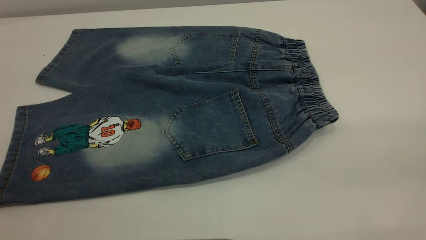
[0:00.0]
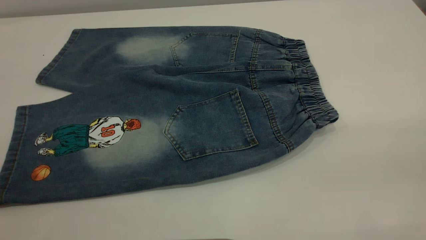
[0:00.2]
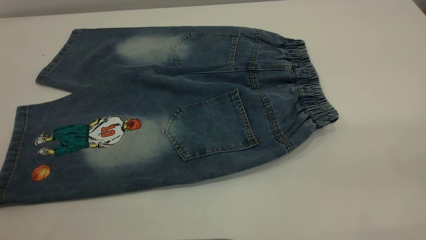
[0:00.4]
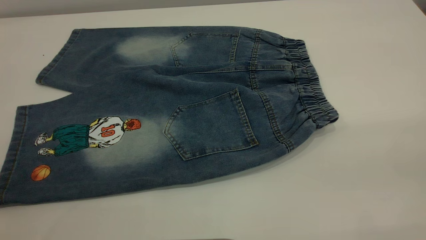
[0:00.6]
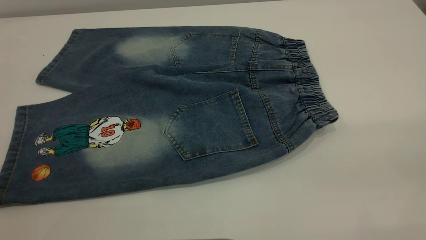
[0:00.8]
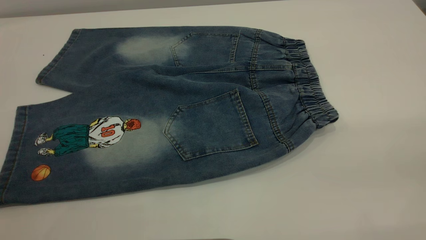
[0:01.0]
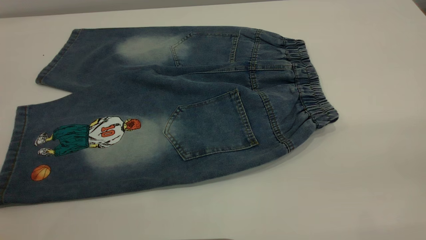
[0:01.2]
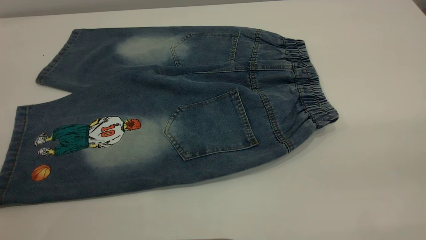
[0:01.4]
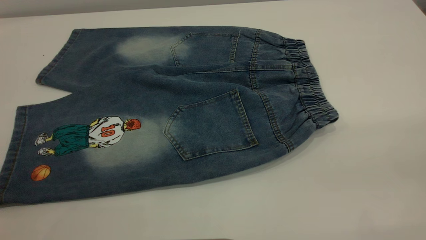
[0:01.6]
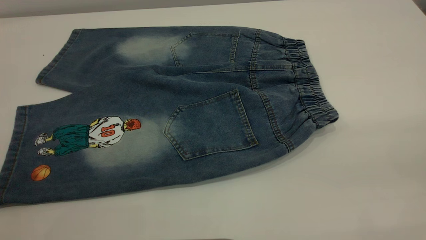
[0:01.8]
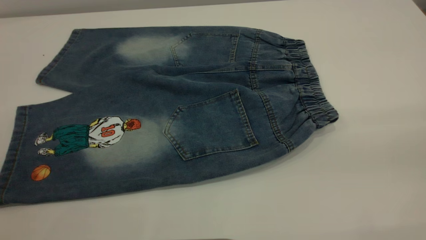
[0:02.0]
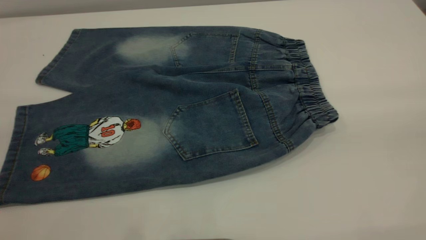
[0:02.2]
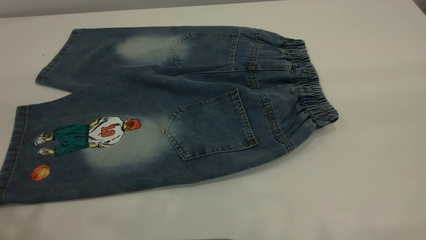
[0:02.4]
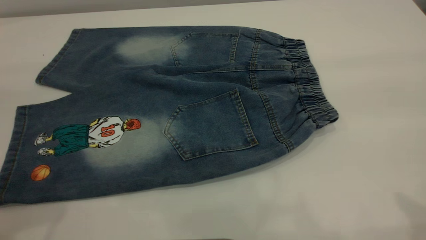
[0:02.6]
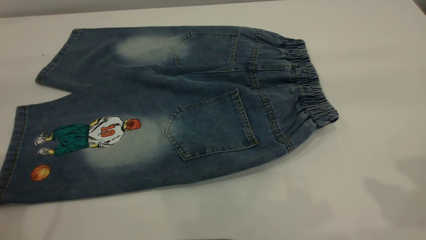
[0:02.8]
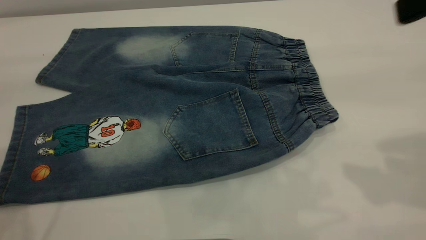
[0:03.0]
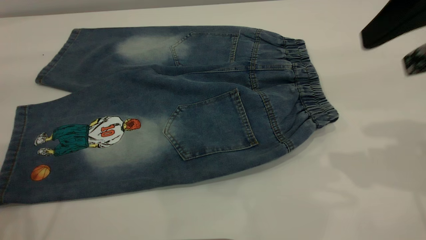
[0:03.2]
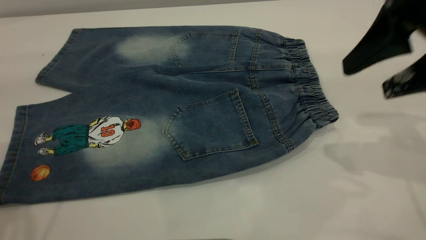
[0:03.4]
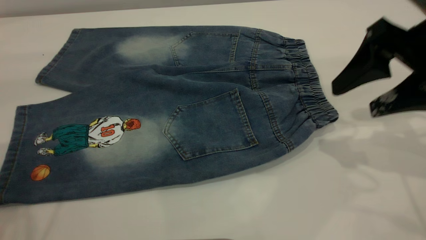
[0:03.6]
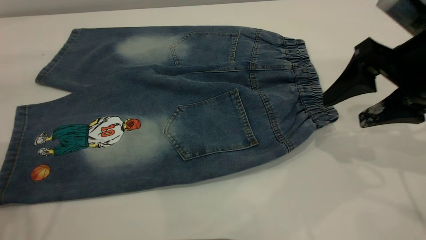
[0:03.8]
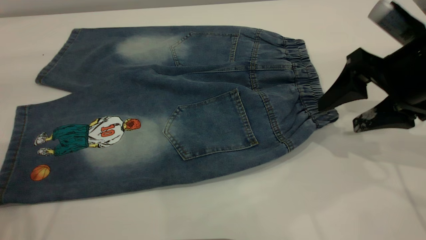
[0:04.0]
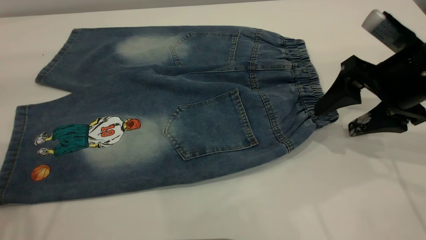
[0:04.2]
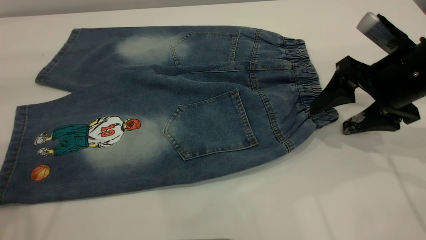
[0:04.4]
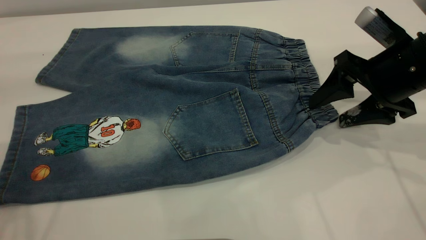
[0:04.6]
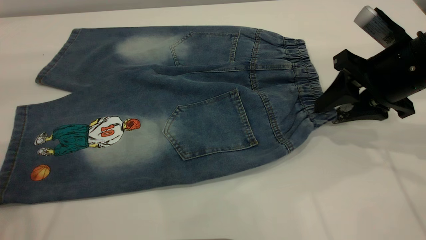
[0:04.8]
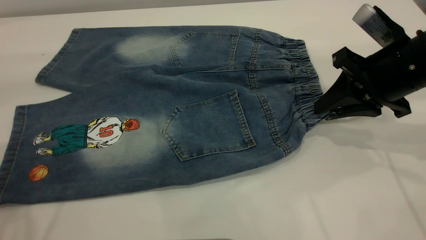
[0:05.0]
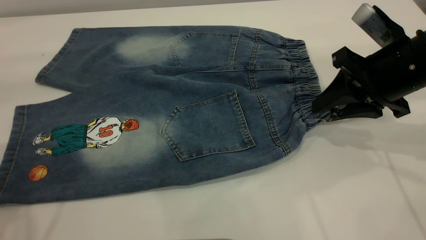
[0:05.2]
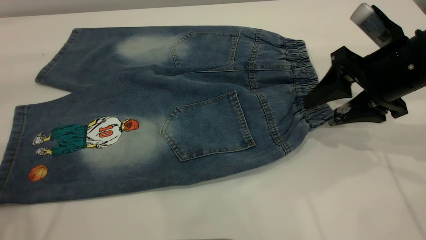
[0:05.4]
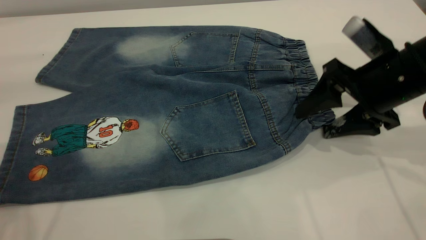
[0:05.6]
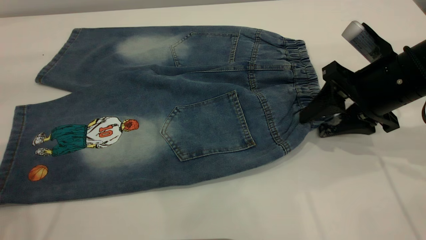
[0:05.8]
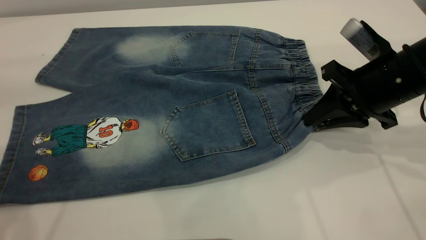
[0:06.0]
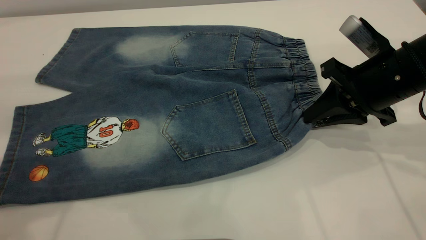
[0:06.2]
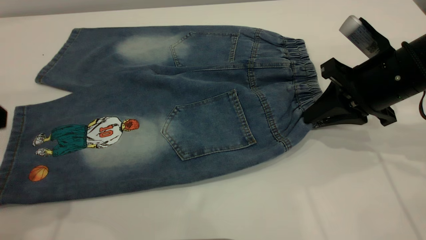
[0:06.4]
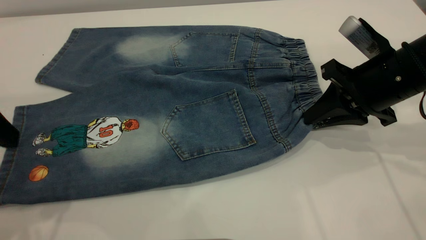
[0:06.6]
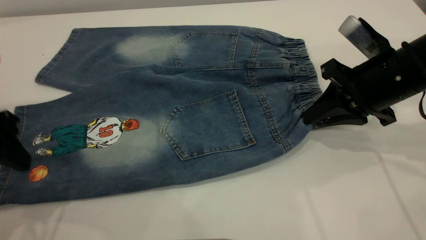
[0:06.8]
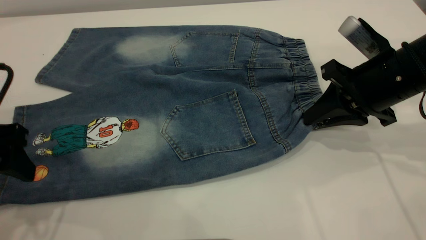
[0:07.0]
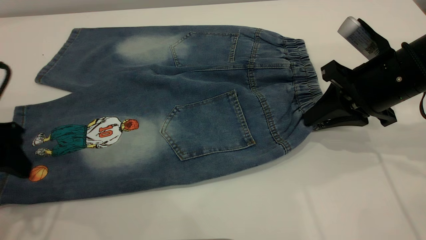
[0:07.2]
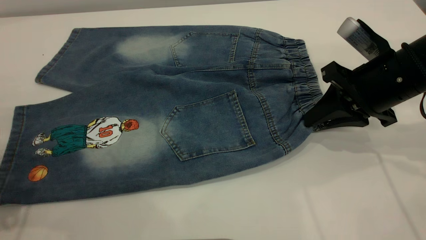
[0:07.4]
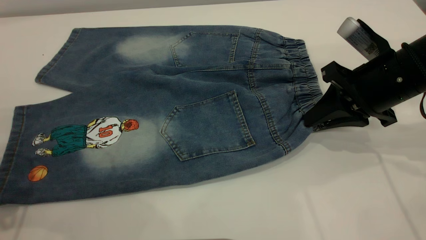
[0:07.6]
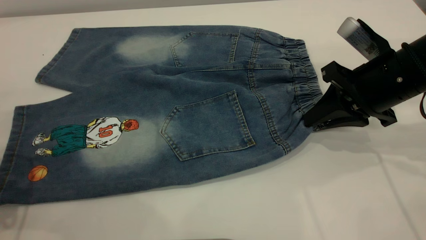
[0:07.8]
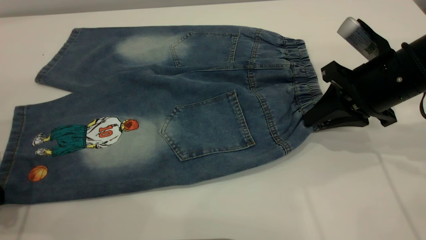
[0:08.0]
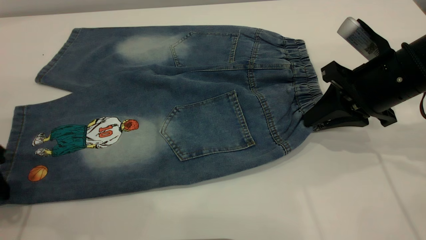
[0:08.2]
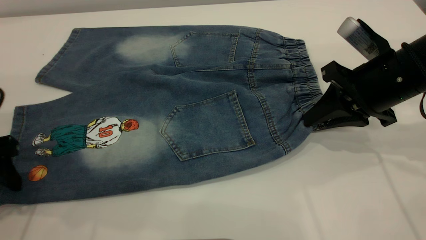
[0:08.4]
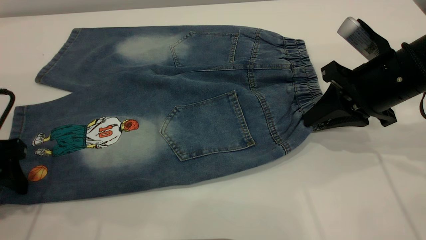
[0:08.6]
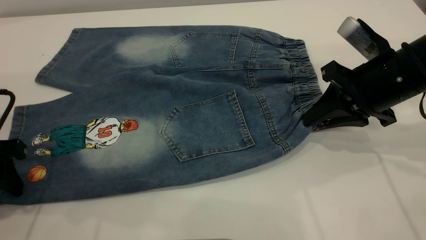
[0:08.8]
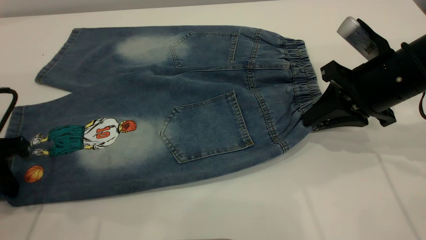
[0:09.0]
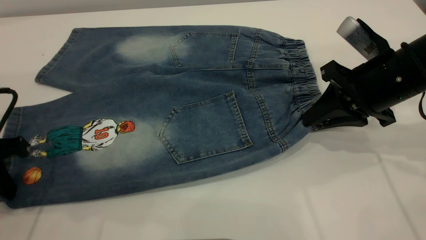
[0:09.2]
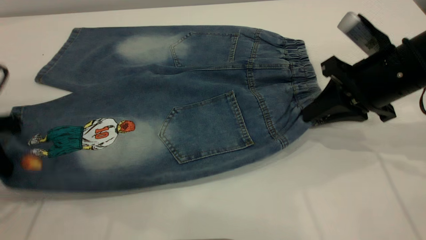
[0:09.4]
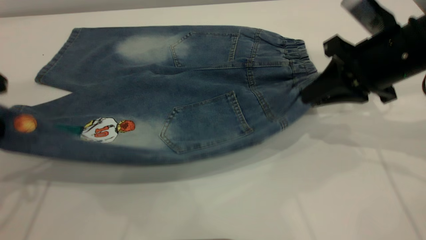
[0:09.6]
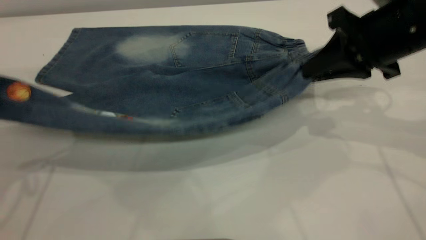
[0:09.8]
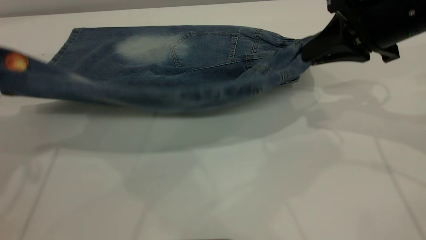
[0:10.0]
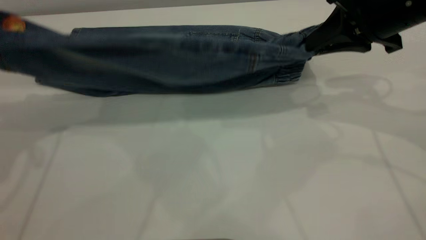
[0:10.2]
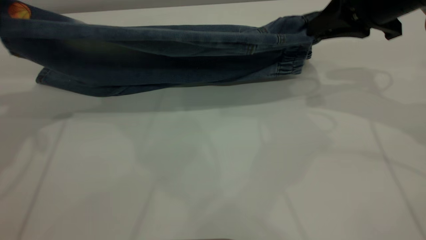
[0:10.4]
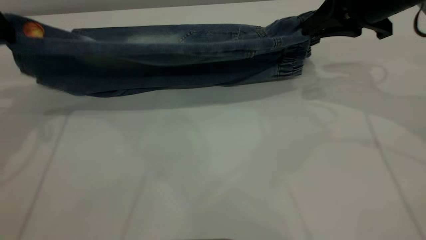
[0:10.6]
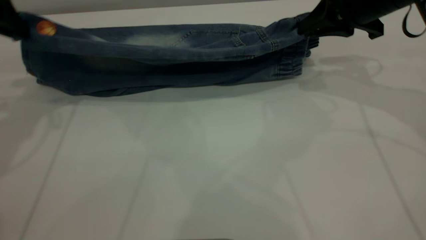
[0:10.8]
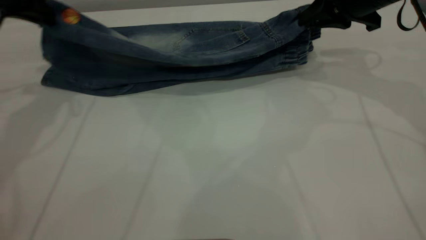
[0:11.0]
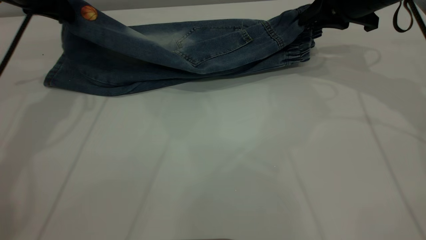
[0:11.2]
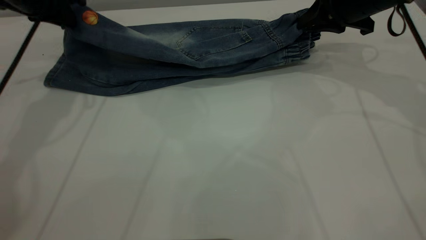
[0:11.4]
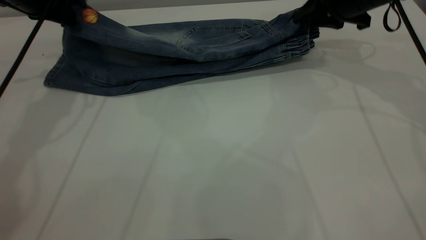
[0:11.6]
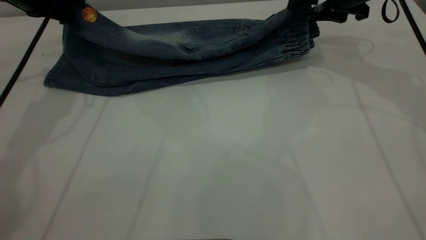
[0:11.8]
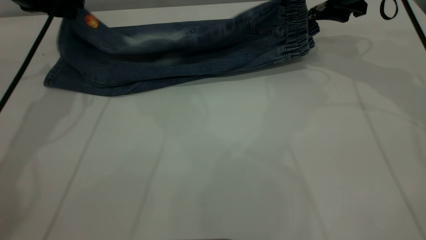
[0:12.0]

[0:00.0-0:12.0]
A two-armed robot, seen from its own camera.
0:00.0 to 0:01.6: Both grippers stay put.
0:01.6 to 0:03.0: The right gripper is displaced forward by some 20 cm.
0:03.0 to 0:04.4: The right gripper is displaced downward and forward by approximately 20 cm.
0:04.4 to 0:06.0: The right gripper closes up.
0:07.6 to 0:09.0: The left gripper changes place by approximately 5 cm, and closes up.
0:09.0 to 0:10.4: The right gripper goes about 10 cm upward and forward. Meanwhile the left gripper travels upward and forward by about 20 cm.
0:10.4 to 0:12.0: The right gripper moves forward, some 10 cm, and opens its fingers. The left gripper shifts some 10 cm forward and downward, and opens up.

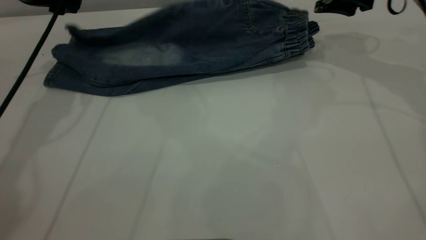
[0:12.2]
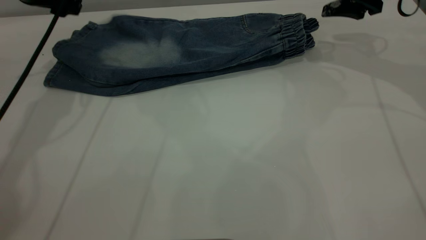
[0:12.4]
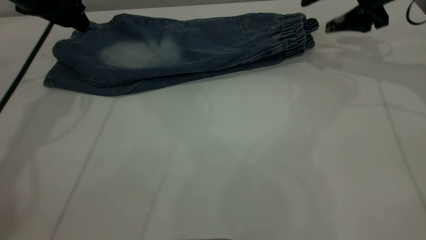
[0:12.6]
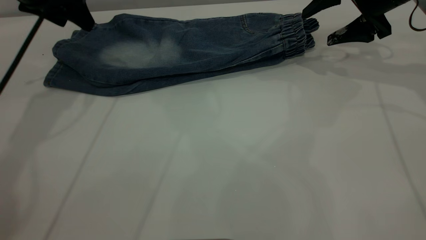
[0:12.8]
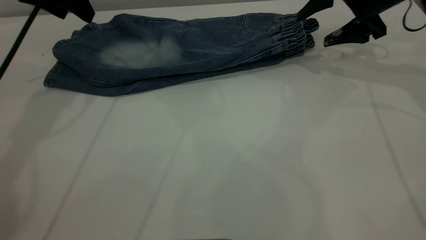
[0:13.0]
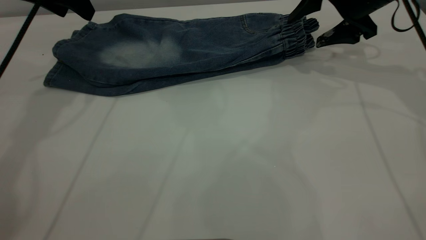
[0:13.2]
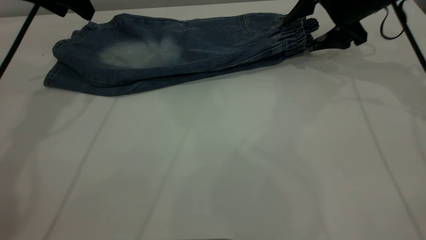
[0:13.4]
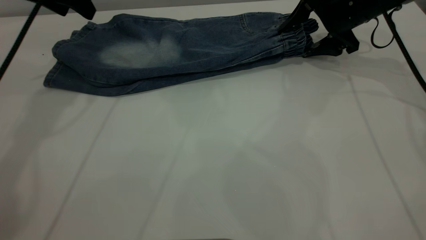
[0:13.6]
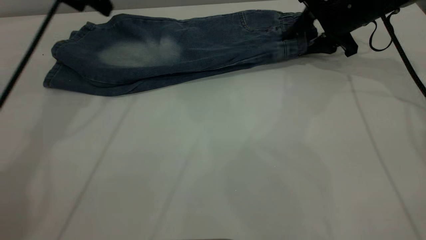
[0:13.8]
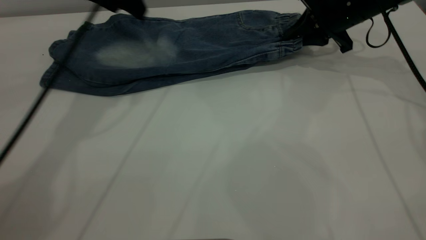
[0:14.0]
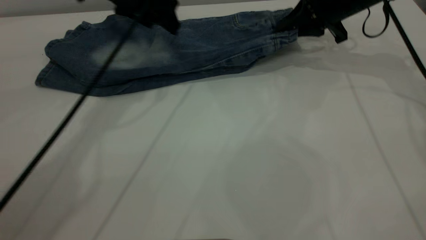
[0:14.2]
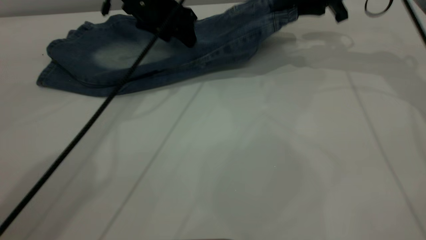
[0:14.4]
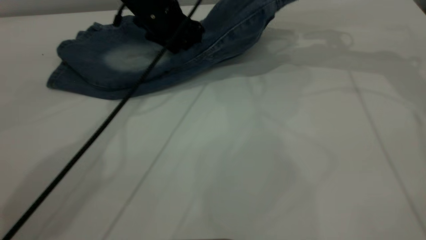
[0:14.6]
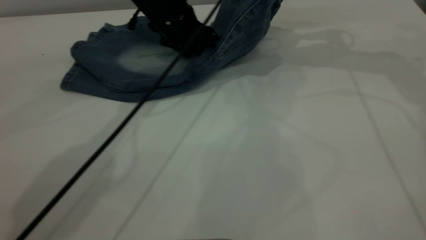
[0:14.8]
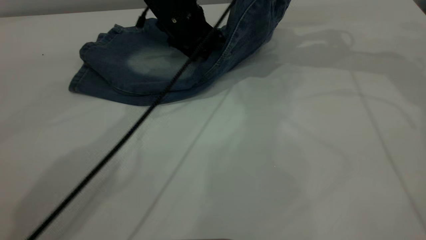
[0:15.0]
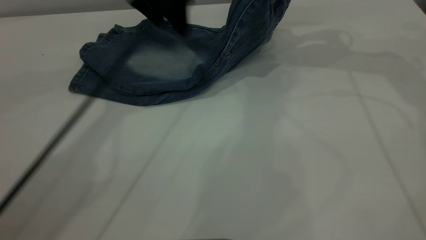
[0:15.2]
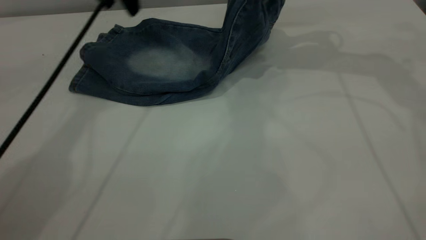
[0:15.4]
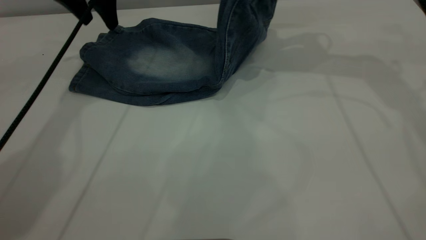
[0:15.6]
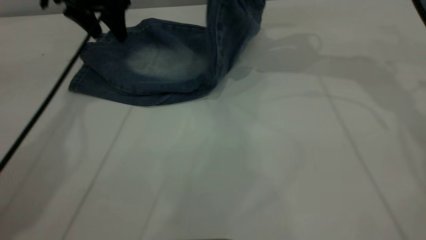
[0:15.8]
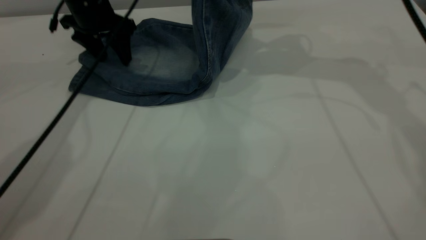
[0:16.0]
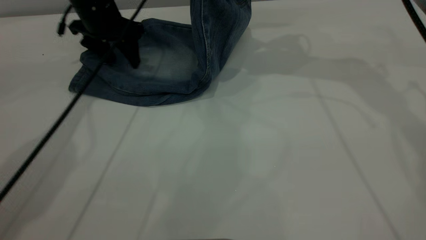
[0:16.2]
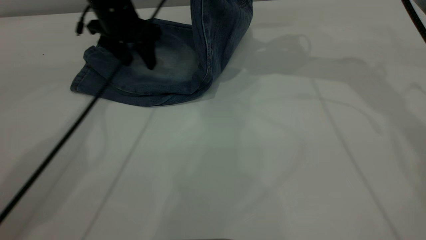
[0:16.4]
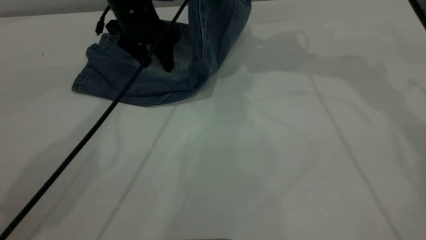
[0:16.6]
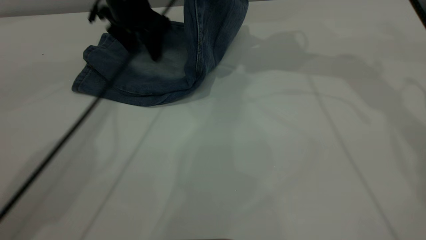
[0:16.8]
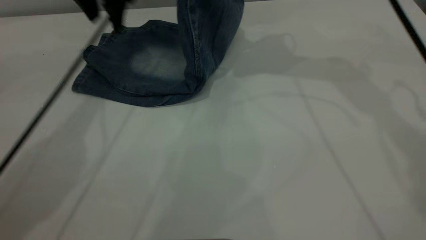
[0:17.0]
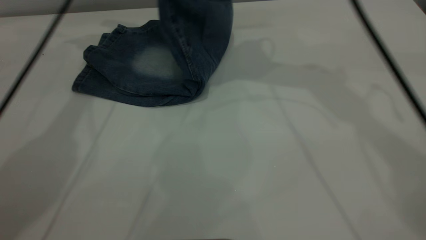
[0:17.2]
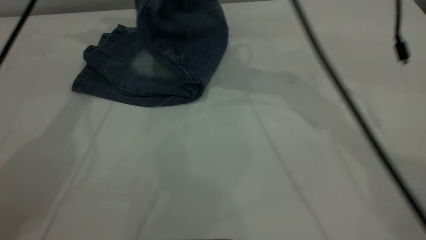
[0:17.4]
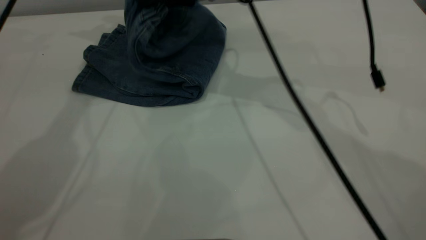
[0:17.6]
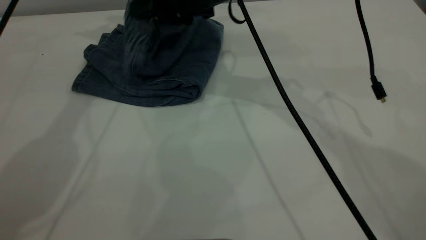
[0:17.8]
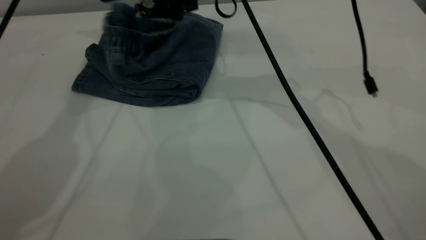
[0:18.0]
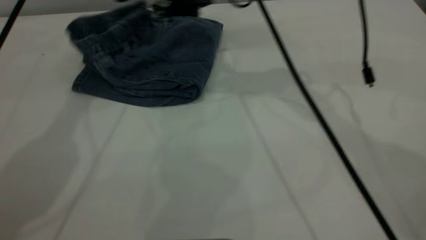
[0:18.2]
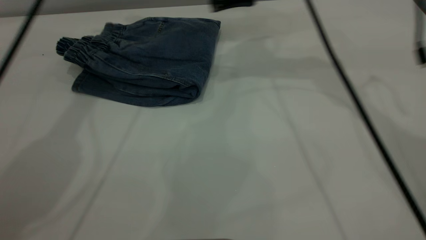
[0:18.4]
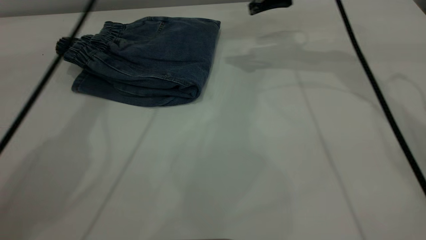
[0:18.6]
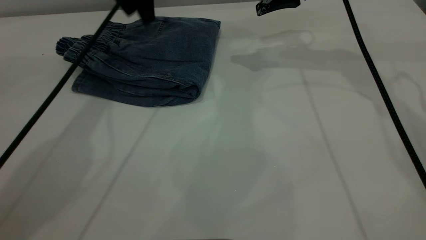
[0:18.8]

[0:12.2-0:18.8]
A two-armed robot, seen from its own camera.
Step, 0:12.4 to 0:18.4: Fold your pants from right to left.
0:12.2 to 0:13.8: The right gripper moves downward, about 5 cm, and closes its fingers; the left gripper goes about 5 cm to the right.
0:13.8 to 0:15.4: The left gripper moves forward, approximately 5 cm, and moves some 15 cm to the right and comes back. The right gripper goes approximately 15 cm upward.
0:15.4 to 0:17.2: The right gripper is displaced to the left by about 15 cm, while the left gripper moves about 10 cm downward and comes back.
0:17.2 to 0:18.8: The left gripper heads downward and to the right, covering roughly 10 cm; the right gripper shifts some 10 cm to the right and downward, and opens.
